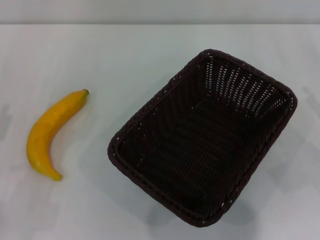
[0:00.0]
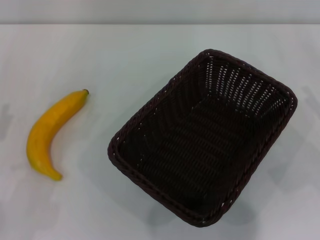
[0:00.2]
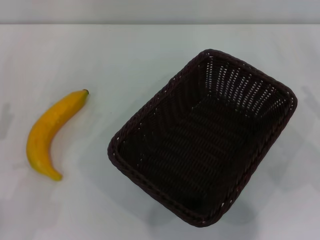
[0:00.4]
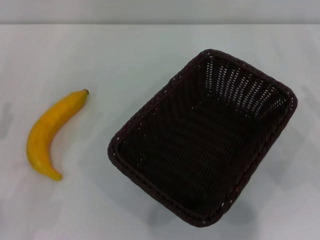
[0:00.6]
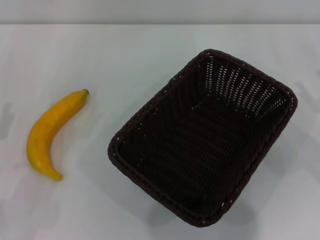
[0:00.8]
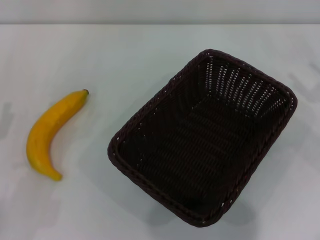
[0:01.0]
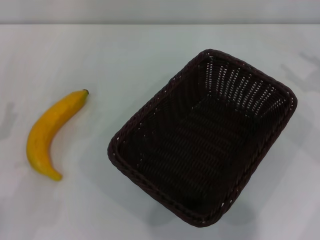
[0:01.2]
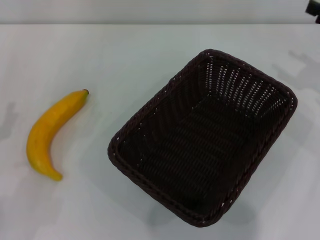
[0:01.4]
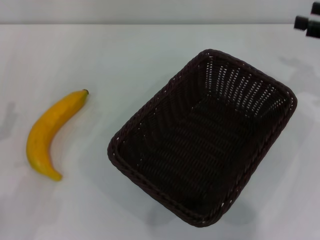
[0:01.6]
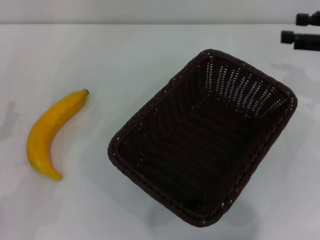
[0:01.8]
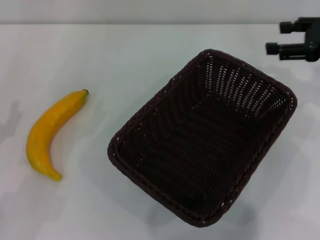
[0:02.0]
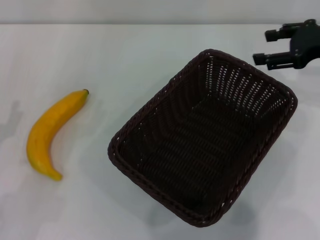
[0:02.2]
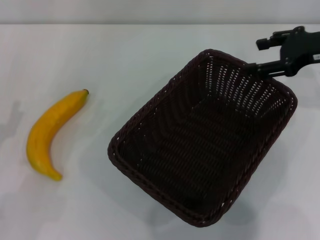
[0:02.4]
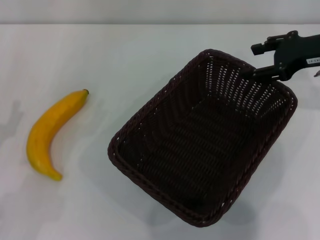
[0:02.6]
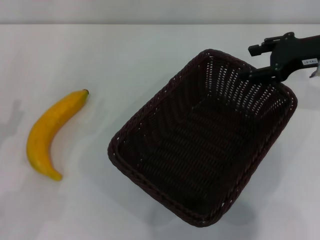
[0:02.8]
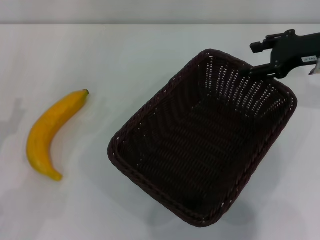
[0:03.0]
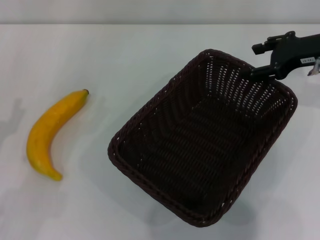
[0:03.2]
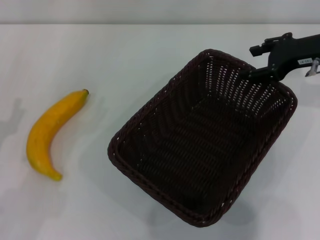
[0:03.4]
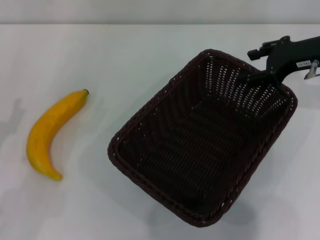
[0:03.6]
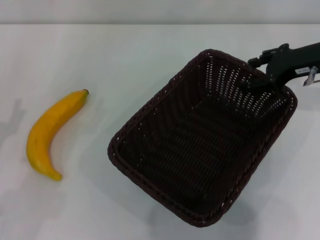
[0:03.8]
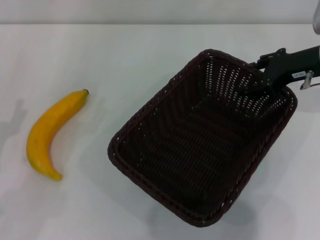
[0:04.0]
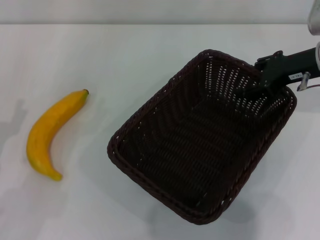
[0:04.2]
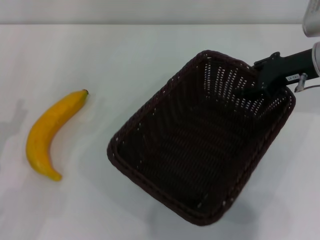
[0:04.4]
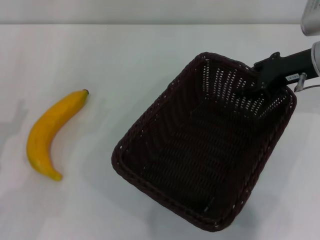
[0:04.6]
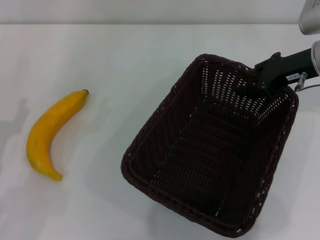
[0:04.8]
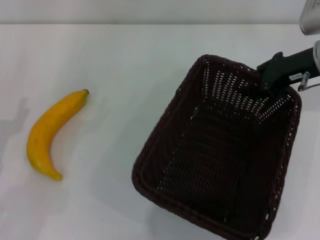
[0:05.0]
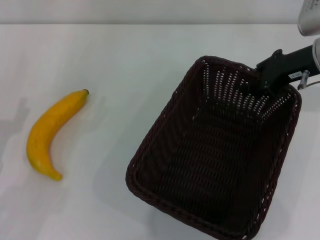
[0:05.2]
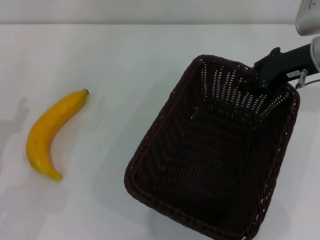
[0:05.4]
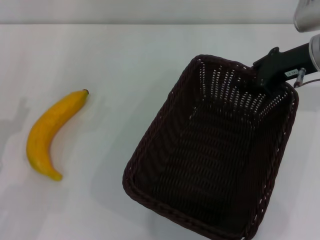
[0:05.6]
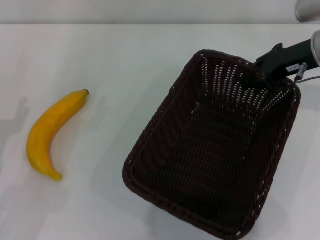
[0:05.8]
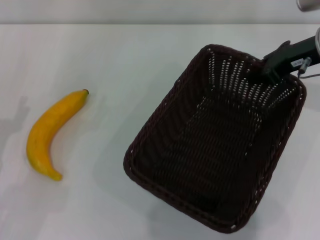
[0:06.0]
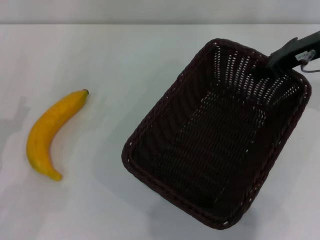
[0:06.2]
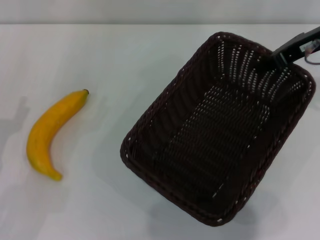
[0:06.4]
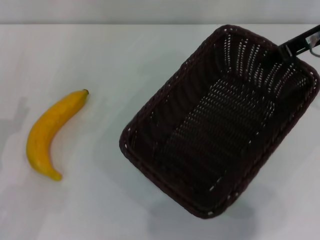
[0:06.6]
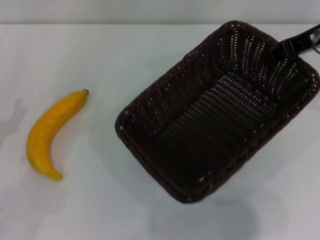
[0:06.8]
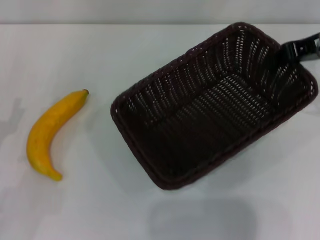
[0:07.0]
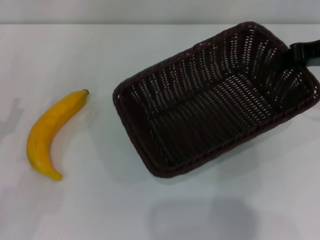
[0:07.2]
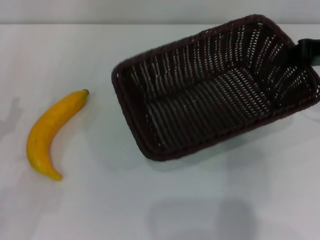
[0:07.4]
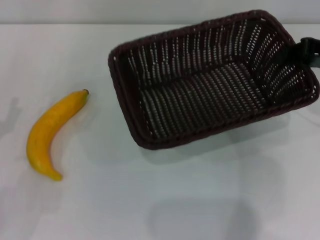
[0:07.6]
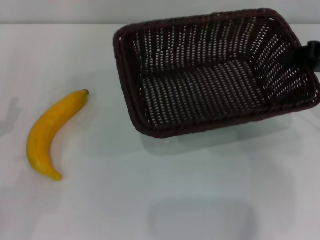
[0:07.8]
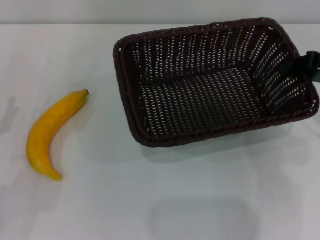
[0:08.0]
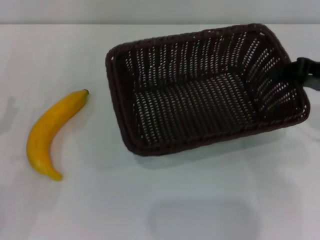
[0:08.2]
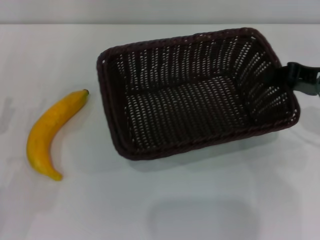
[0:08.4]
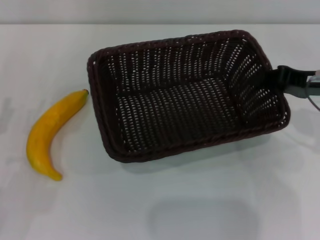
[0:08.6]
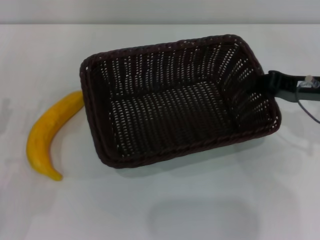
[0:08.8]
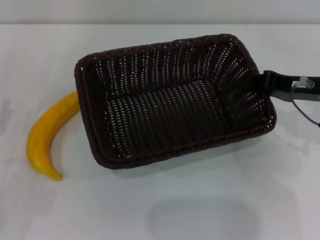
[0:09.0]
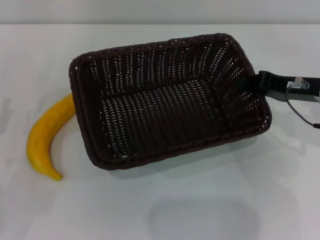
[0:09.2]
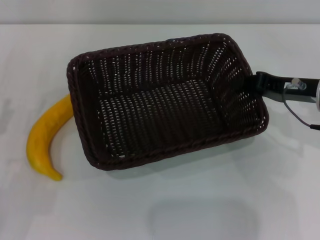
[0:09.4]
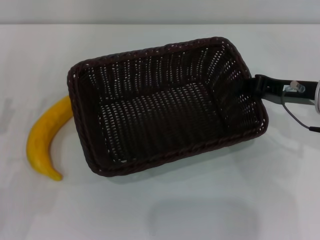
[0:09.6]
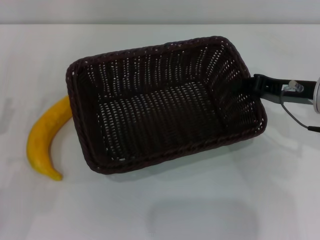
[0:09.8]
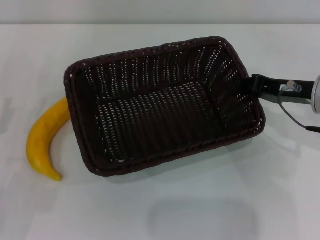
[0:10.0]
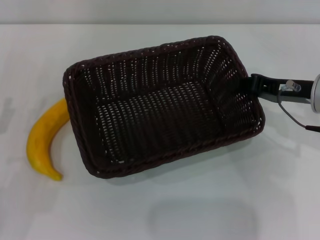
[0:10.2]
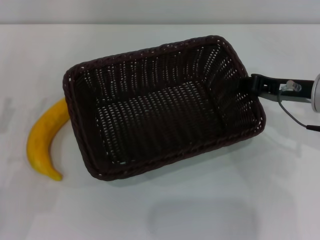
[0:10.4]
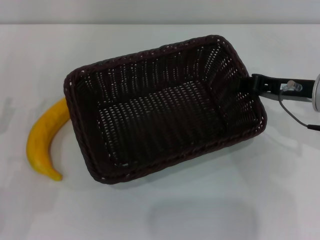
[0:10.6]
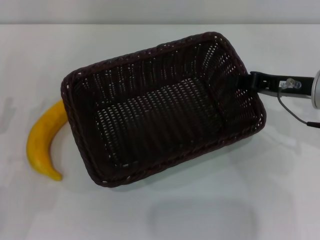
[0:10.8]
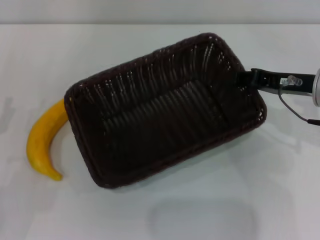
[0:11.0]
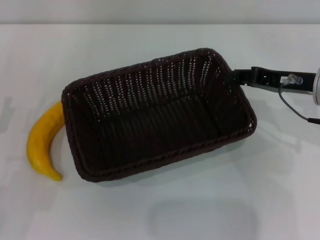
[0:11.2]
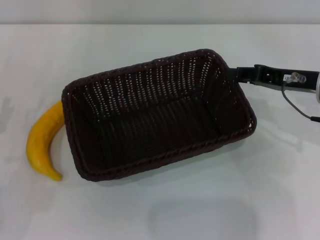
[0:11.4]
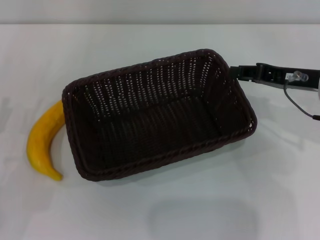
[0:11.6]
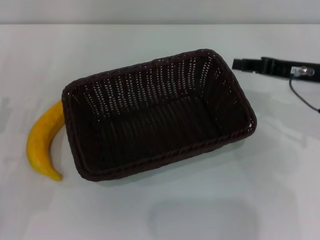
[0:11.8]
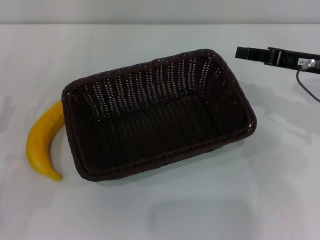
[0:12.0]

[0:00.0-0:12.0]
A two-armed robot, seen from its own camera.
Step, 0:00.0 to 0:07.0: Pick up the dark basket with the right gripper.
0:00.0 to 0:01.6: The right gripper is displaced forward and upward by about 15 cm.
0:01.6 to 0:03.0: The right gripper is displaced to the left by some 10 cm.
0:03.0 to 0:04.4: The grippers move only a little.
0:04.4 to 0:06.0: The right gripper closes up.
0:06.0 to 0:07.6: The right gripper heads to the right, covering approximately 5 cm.
0:07.6 to 0:09.0: The right gripper moves downward, roughly 5 cm.
0:09.0 to 0:12.0: The grippers make only small movements.

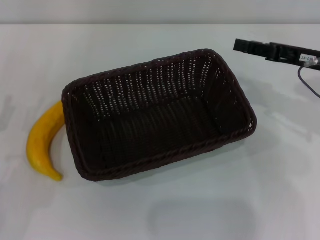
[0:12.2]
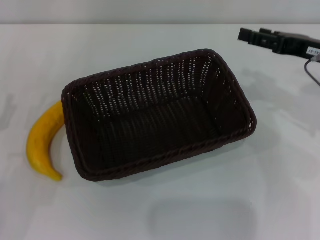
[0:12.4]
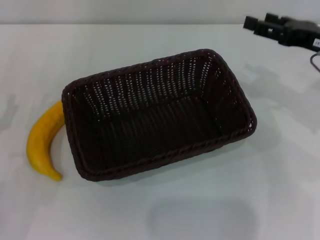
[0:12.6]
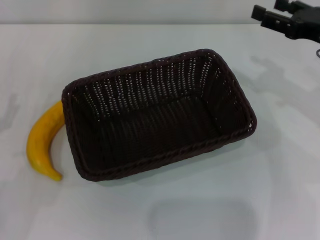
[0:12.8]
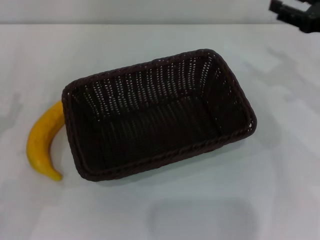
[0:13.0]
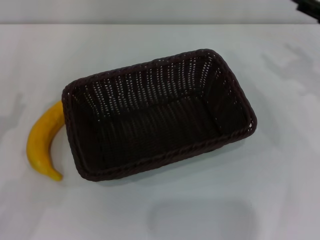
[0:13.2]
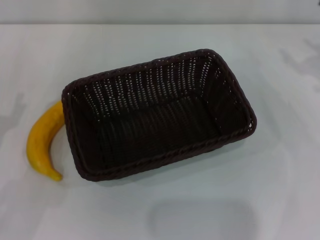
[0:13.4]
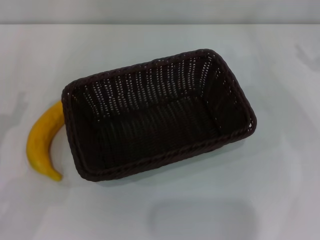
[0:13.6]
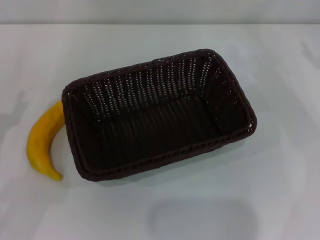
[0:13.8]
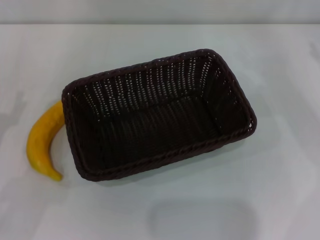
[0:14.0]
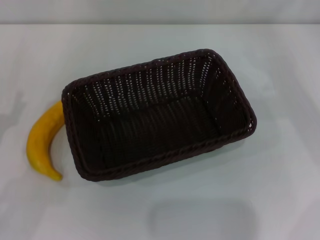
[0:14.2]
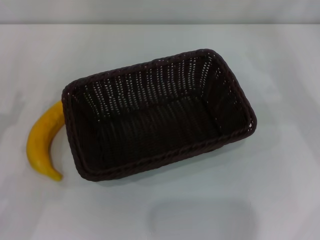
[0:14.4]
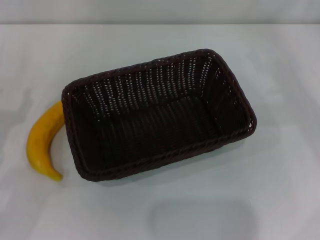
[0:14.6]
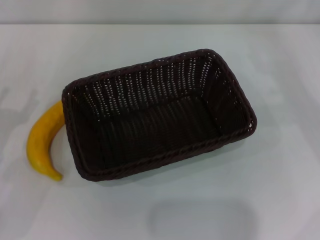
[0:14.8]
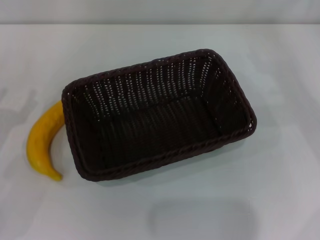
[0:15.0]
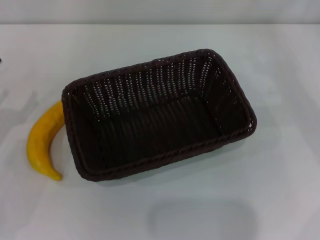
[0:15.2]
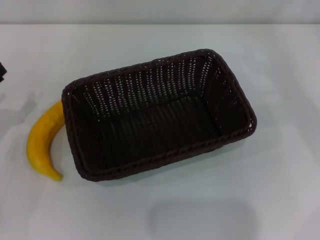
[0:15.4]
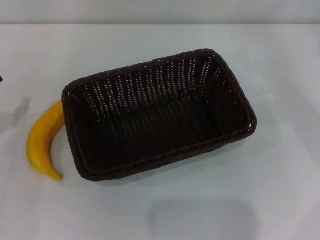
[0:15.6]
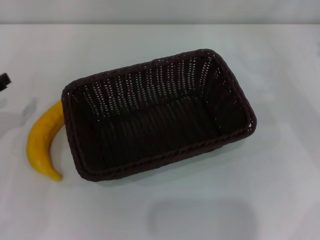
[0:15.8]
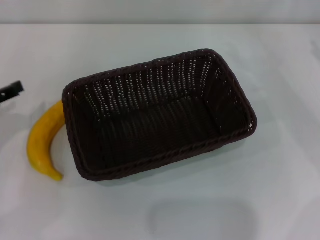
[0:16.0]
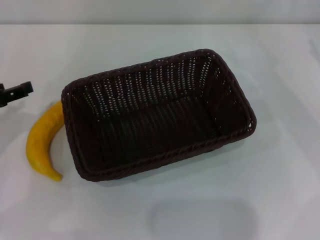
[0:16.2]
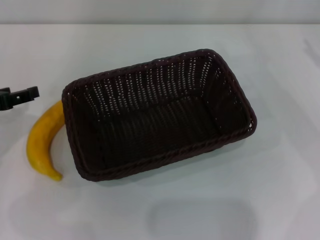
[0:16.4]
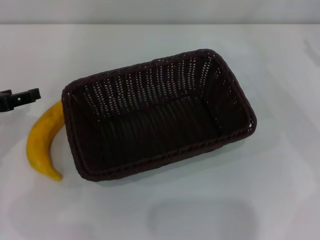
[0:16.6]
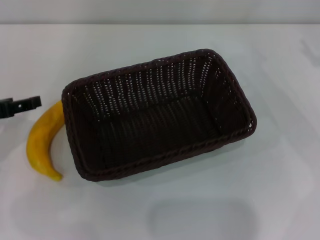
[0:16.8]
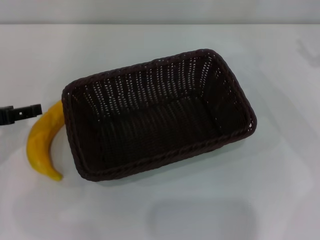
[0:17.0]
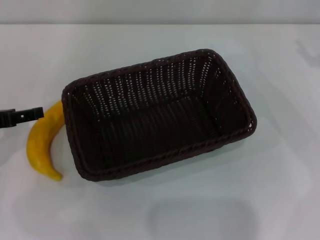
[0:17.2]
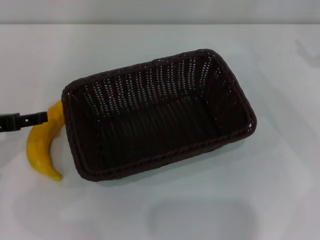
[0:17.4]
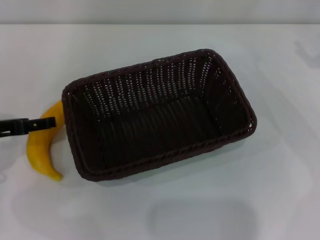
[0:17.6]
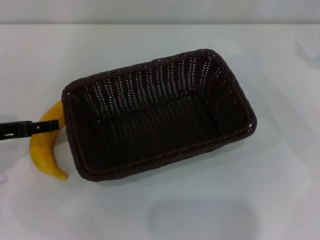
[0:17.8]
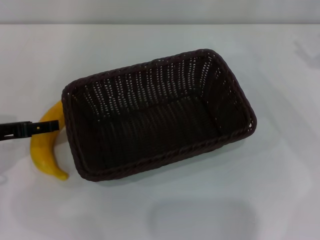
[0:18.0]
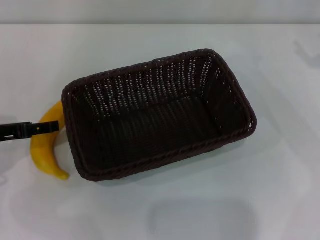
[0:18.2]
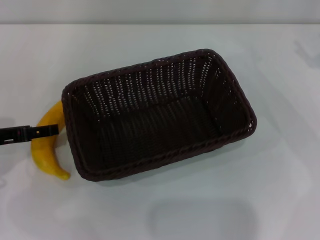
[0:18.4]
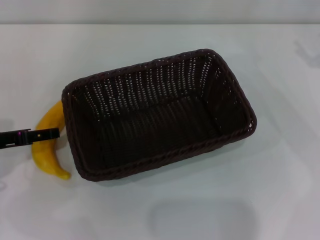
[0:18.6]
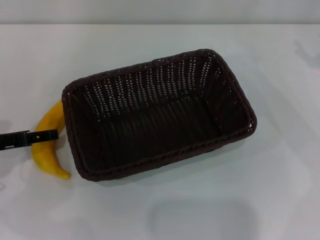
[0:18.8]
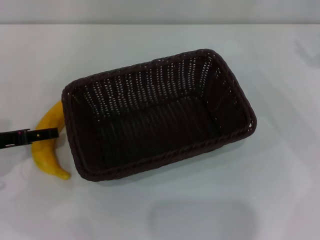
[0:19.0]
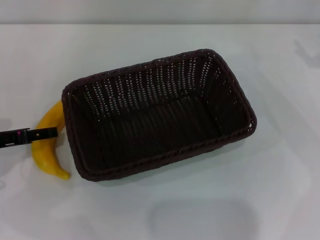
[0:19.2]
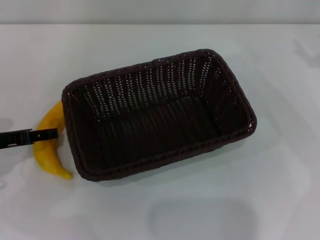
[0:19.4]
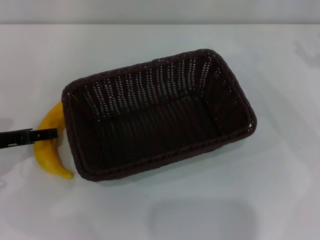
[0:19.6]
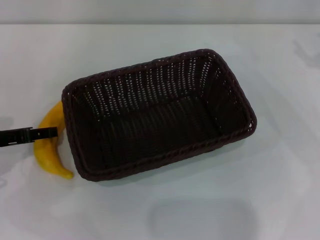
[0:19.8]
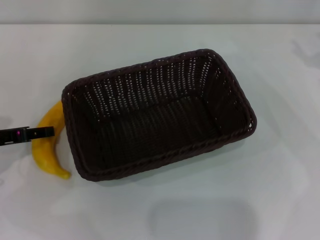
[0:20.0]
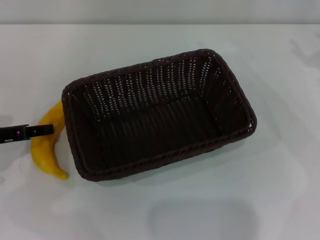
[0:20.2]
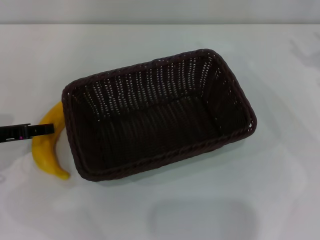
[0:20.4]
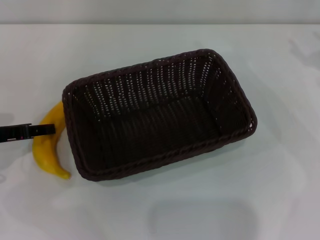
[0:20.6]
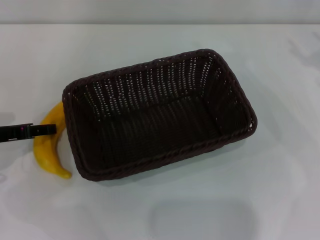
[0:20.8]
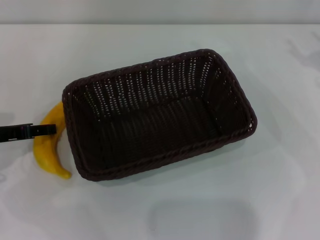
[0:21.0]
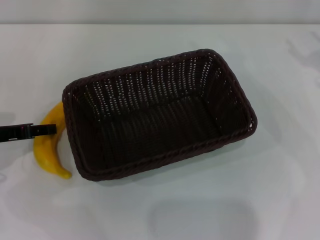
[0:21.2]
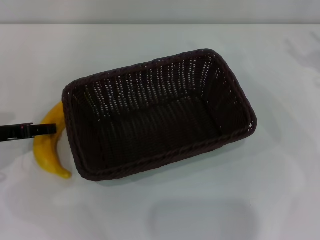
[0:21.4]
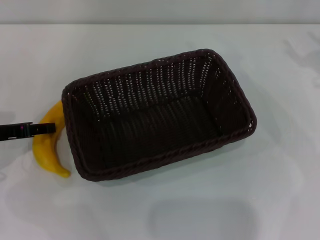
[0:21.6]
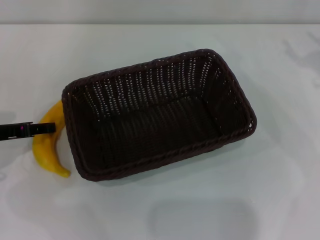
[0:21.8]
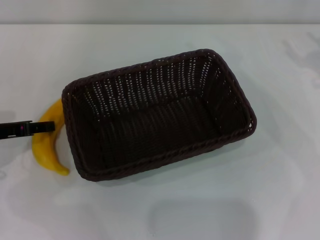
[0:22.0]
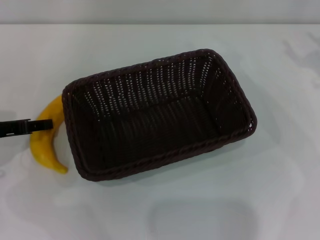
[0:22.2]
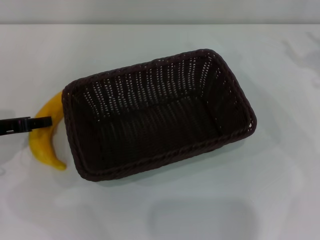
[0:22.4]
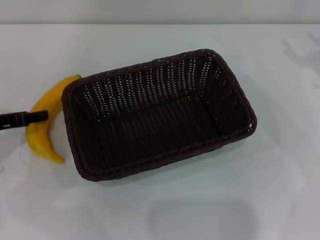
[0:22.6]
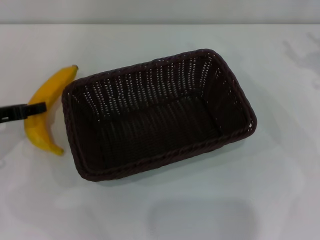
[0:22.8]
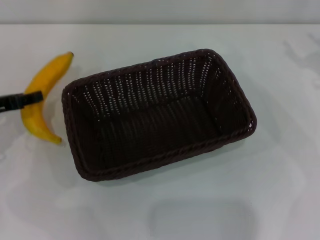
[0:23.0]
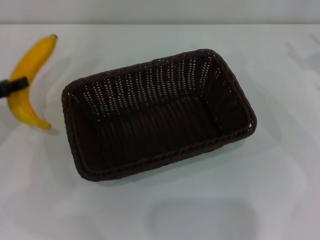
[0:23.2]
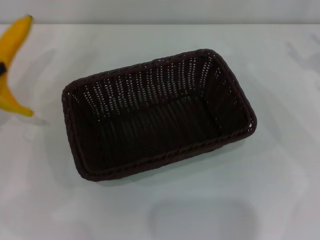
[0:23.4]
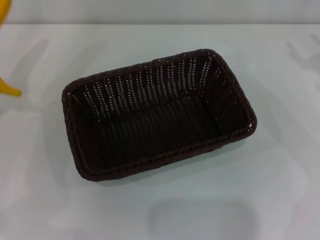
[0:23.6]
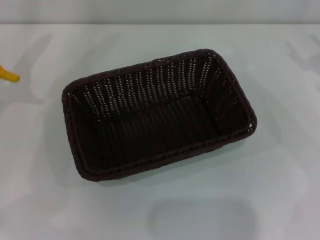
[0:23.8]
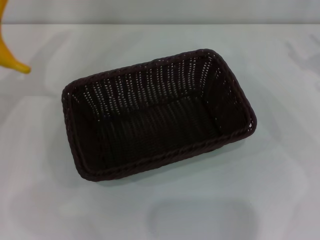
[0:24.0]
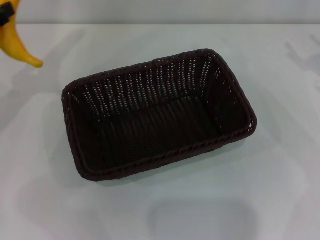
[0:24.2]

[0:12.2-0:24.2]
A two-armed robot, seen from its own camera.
Step, 0:12.6 to 0:23.2: Pick up the banana with the left gripper.
0:12.2 to 0:13.8: The right gripper is displaced to the right by approximately 10 cm, and opens up.
0:15.2 to 0:16.6: The left gripper shifts approximately 5 cm upward.
0:16.6 to 0:18.2: There are only small adjustments of the grippers.
0:18.2 to 0:19.8: The left gripper closes its fingers.
0:19.8 to 0:21.2: The left gripper closes.
0:21.2 to 0:22.6: The grippers move only a little.
0:22.6 to 0:24.2: The left gripper heads upward, covering some 10 cm.
